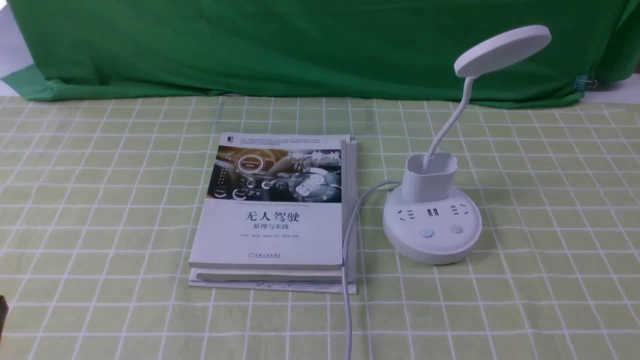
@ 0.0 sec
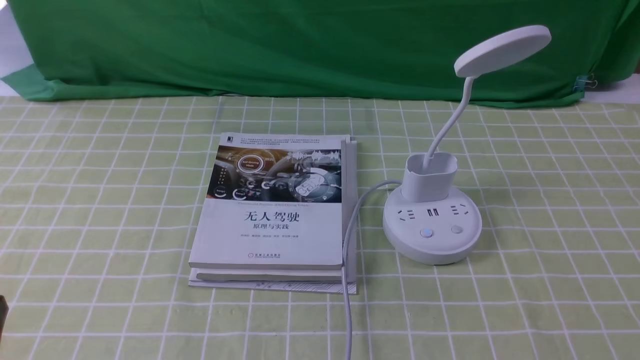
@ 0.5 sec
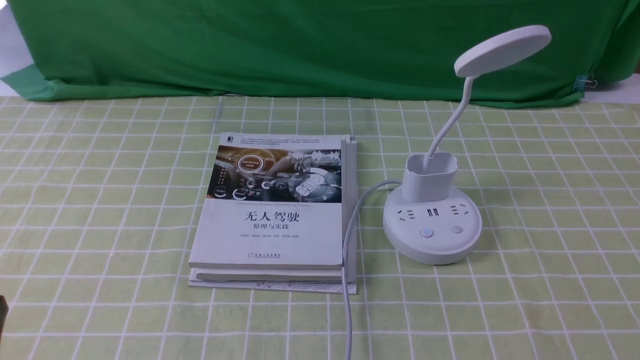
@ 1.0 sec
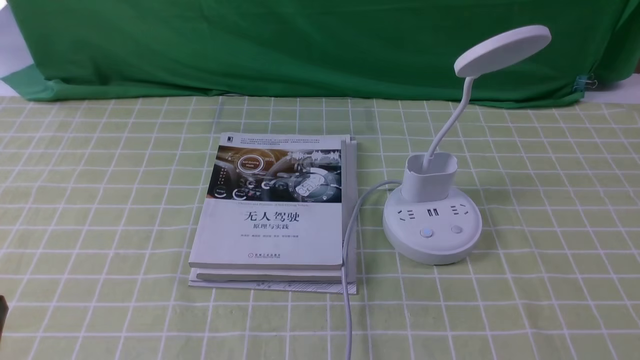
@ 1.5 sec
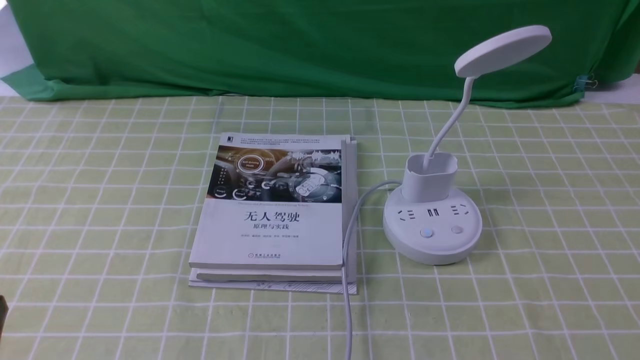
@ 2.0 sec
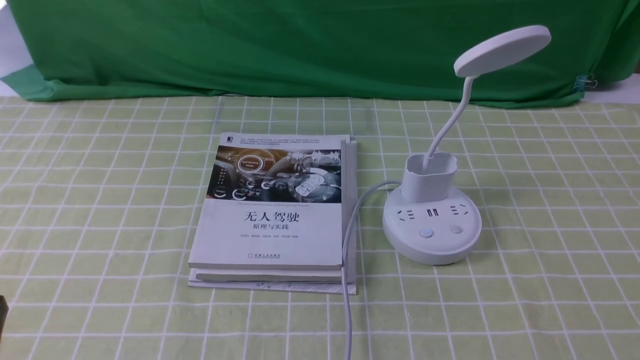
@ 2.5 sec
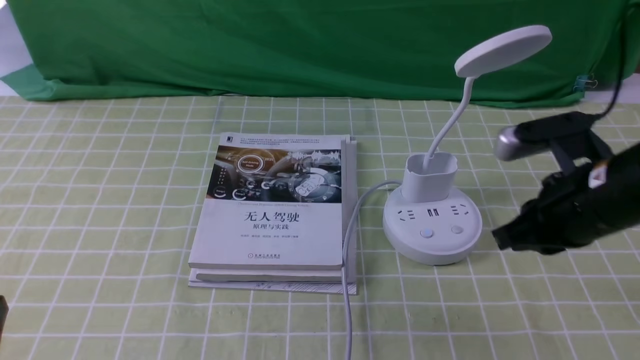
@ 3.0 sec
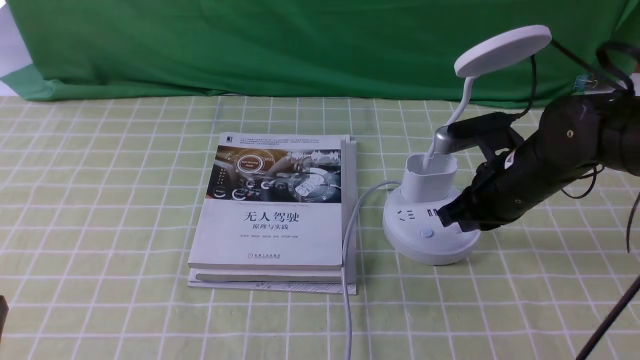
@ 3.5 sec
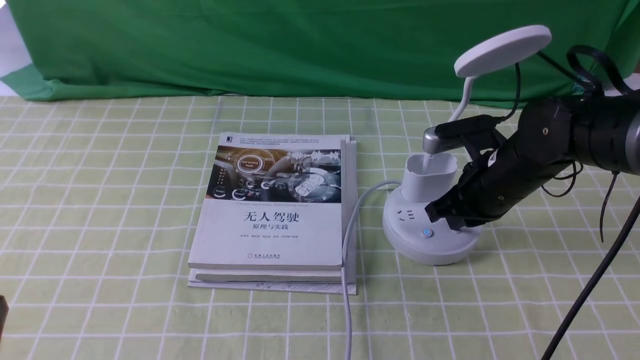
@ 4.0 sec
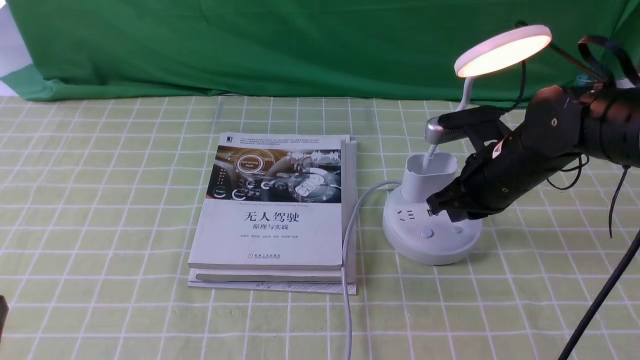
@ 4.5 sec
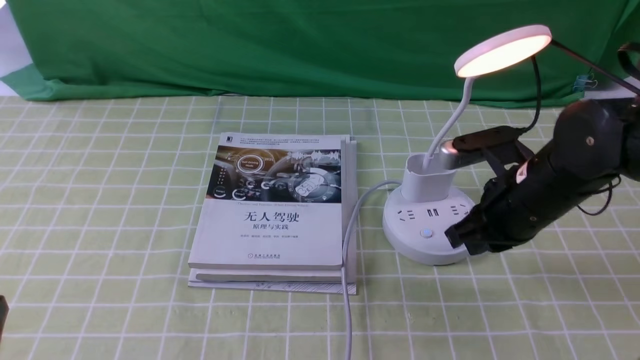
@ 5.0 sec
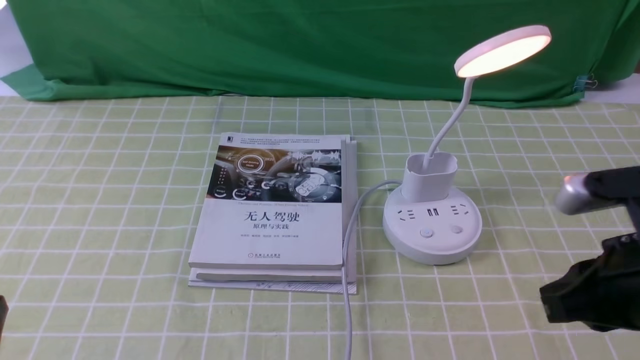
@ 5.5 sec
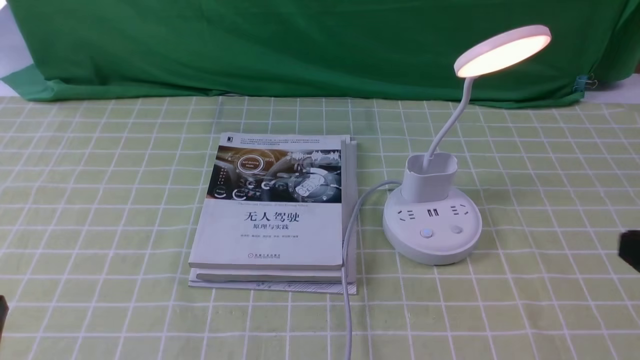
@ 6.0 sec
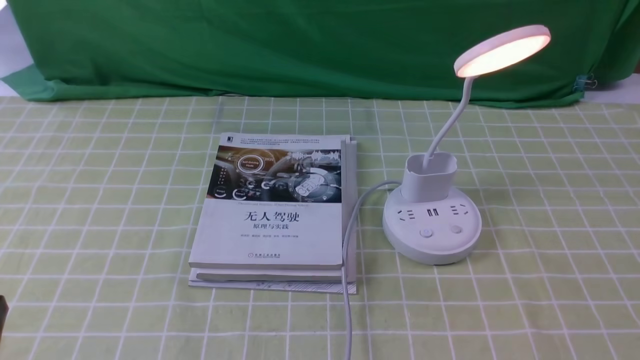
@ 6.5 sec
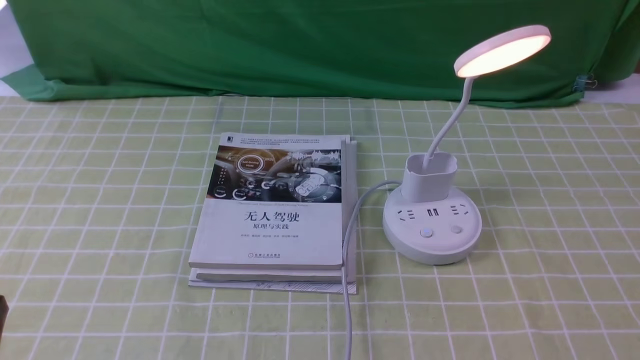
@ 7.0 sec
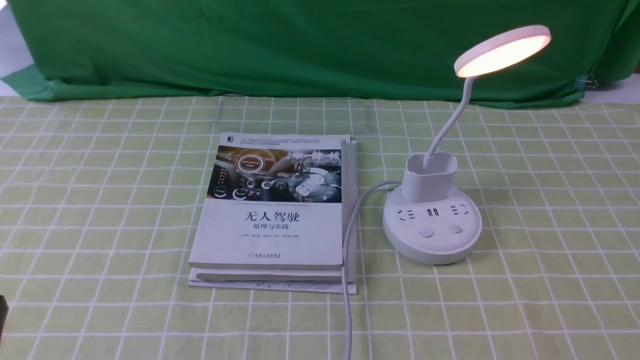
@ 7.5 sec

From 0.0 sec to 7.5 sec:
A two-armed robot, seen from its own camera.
Step, from 0.0 sec to 5.0 sec: use the right arm to press the button switch on the lamp holder.
From 2.0 sec to 4.0 sec: The right gripper travels forward and to the left by some 35 cm, and closes its fingers.
From 4.0 sec to 5.5 sec: The right gripper goes about 20 cm backward and upward.
From 5.5 sec to 7.5 sec: The right gripper travels backward, downward and to the right by roughly 15 cm.

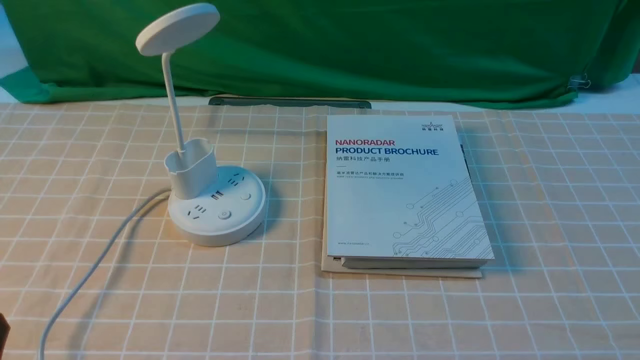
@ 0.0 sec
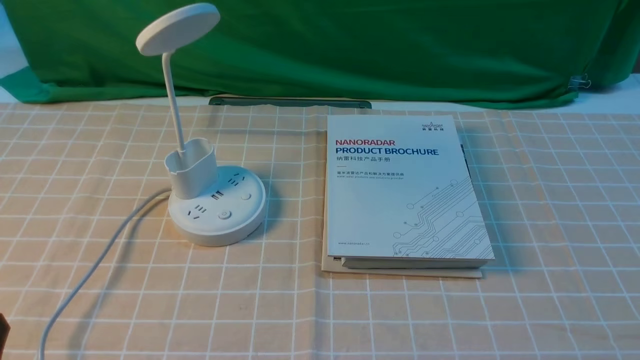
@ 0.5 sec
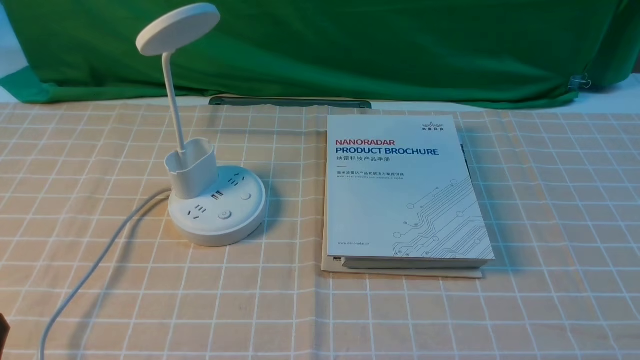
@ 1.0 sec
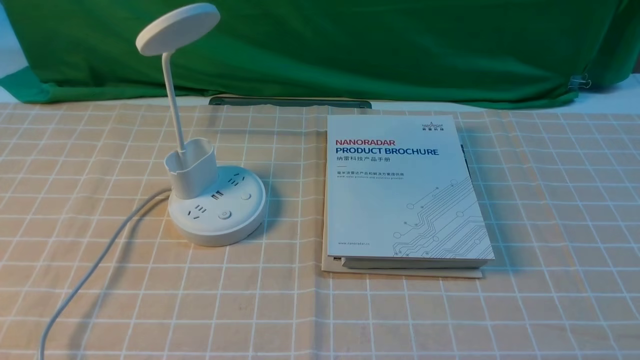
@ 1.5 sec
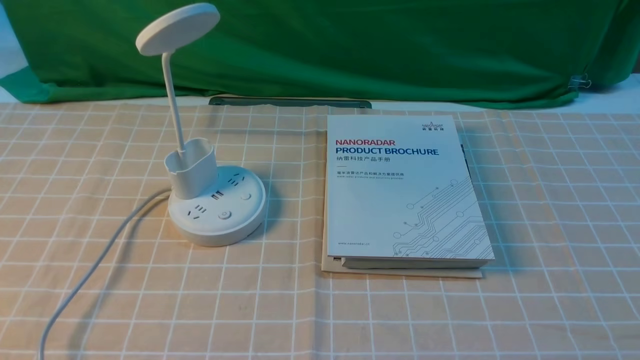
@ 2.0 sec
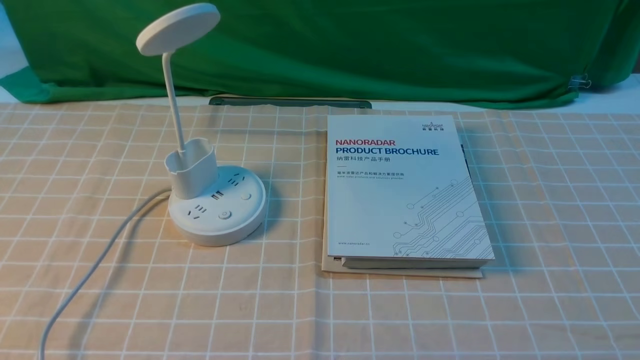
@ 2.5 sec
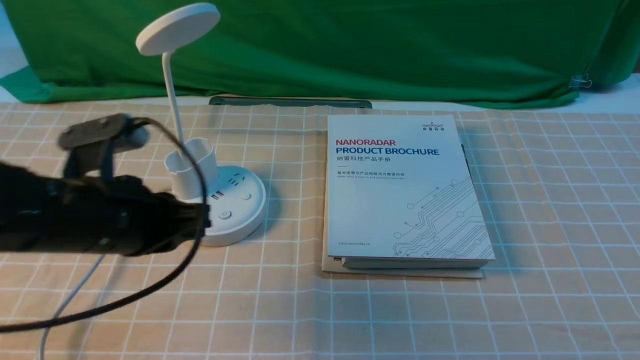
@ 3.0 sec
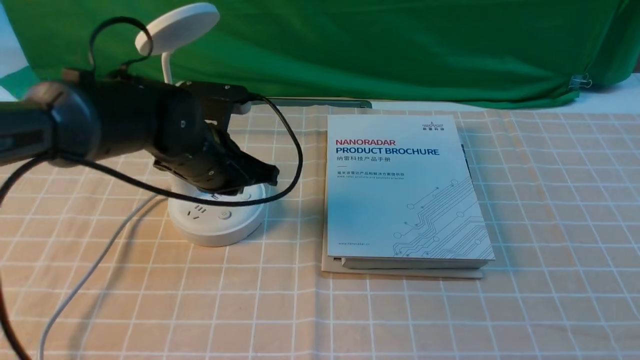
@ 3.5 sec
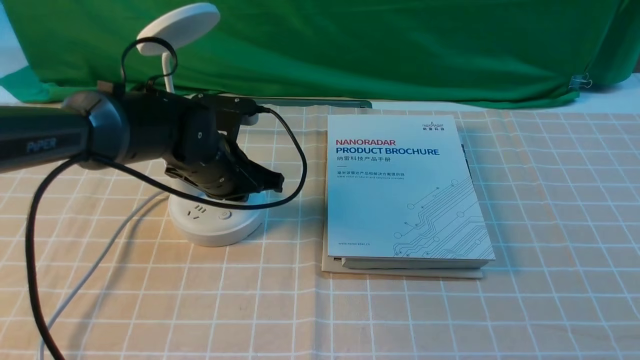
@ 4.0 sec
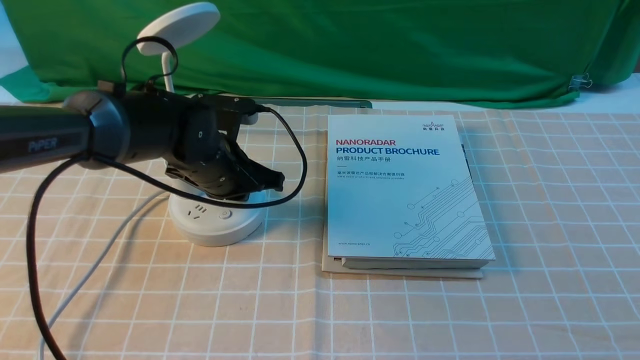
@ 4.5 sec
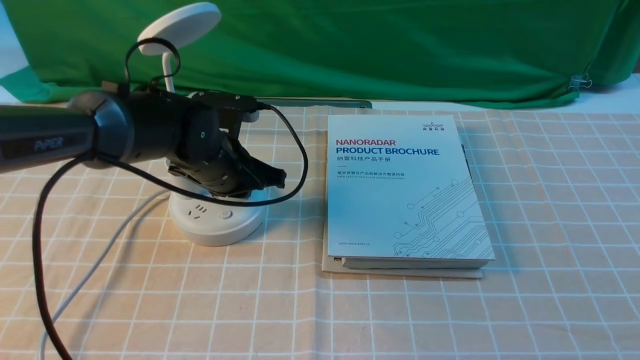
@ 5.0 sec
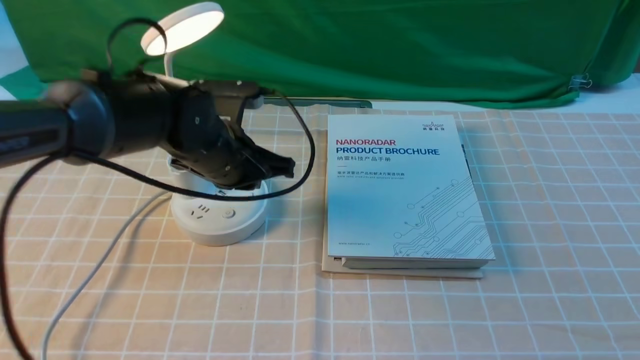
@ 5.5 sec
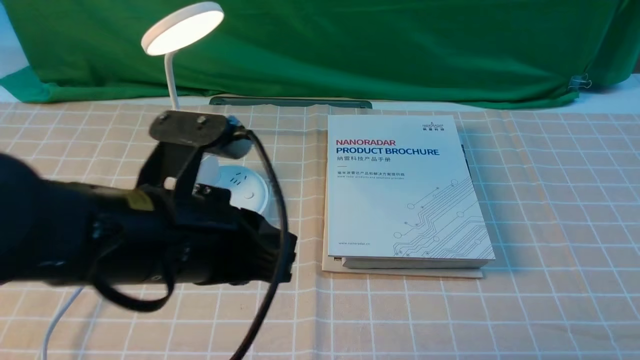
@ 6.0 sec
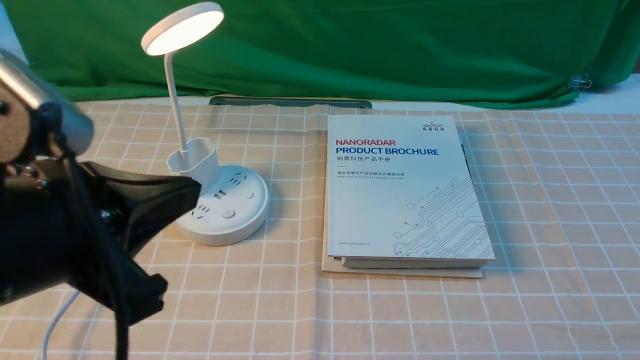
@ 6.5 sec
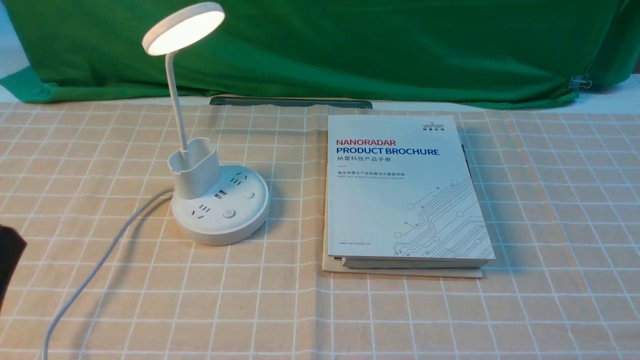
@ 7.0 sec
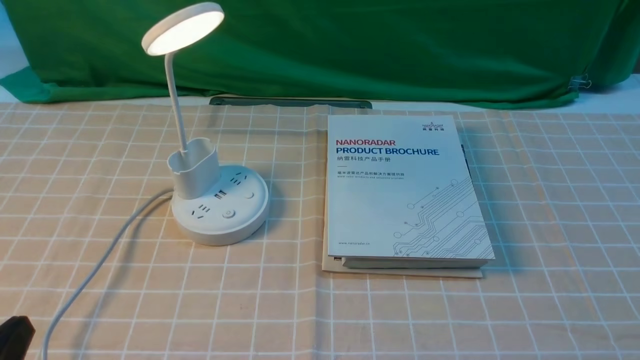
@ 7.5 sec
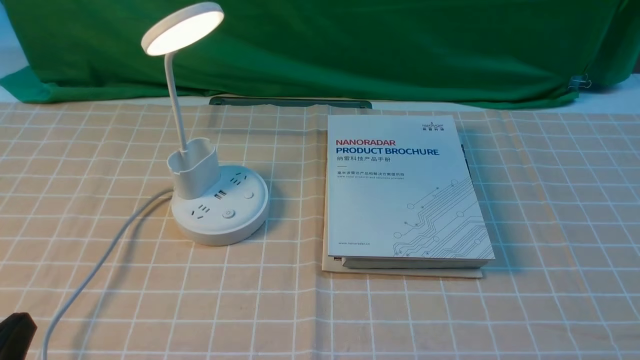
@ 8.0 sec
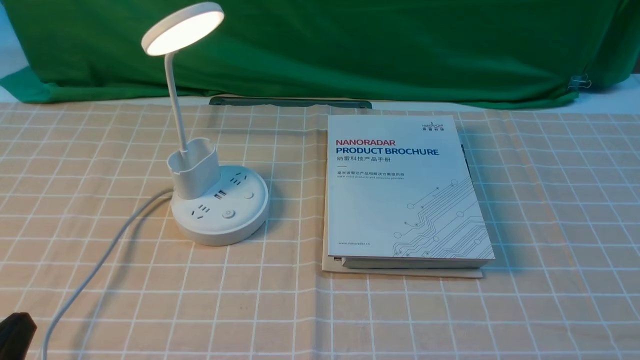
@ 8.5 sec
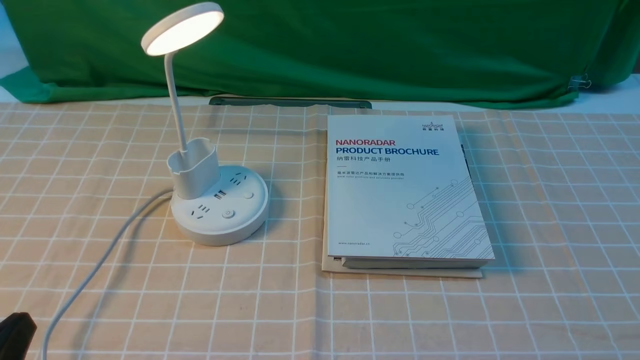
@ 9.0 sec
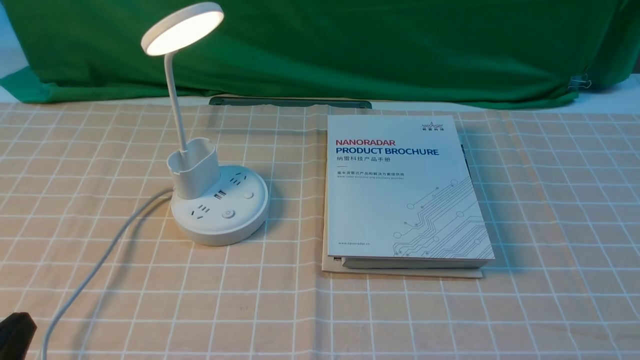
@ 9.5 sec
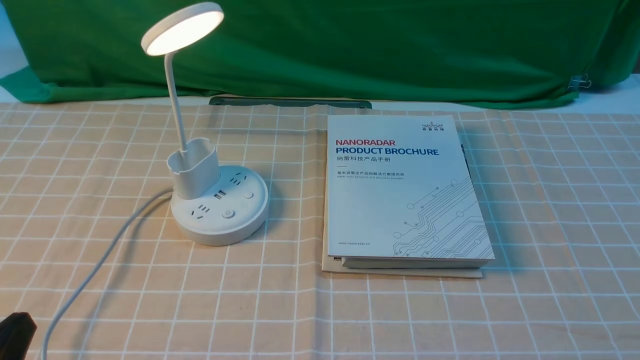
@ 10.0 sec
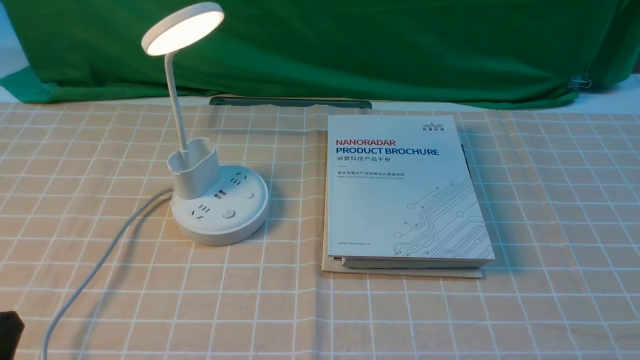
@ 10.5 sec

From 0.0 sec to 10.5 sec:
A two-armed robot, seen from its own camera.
Step, from 0.0 sec to 5.5 sec: use the left arm to press the button switch on the lamp holder.
From 2.0 sec to 4.0 sec: The left gripper travels forward and to the right by some 40 cm, and closes up.
From 4.0 sec to 6.5 sec: The left gripper travels backward and upward by some 30 cm, and opens up.
From 6.5 sec to 8.5 sec: The left gripper travels downward, to the left and backward by approximately 20 cm.
From 8.5 sec to 10.5 sec: Neither gripper changes place.

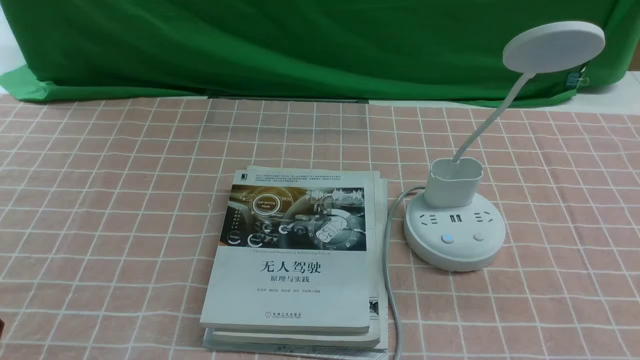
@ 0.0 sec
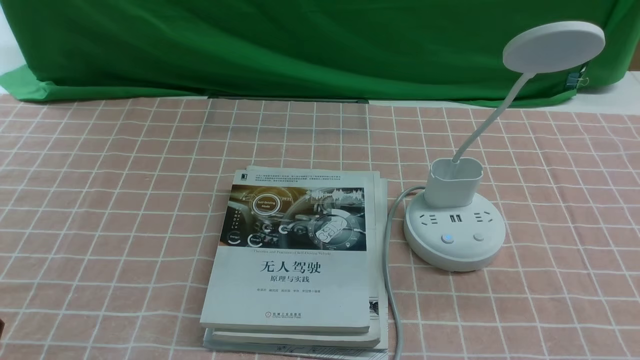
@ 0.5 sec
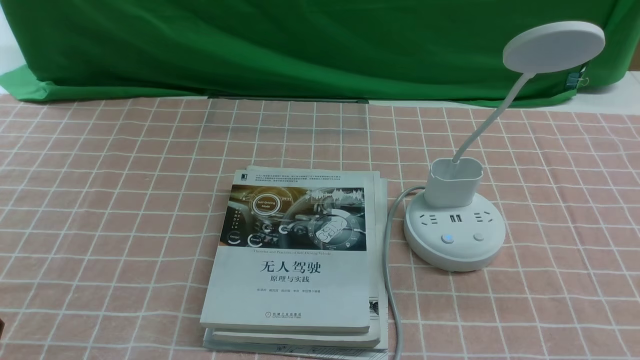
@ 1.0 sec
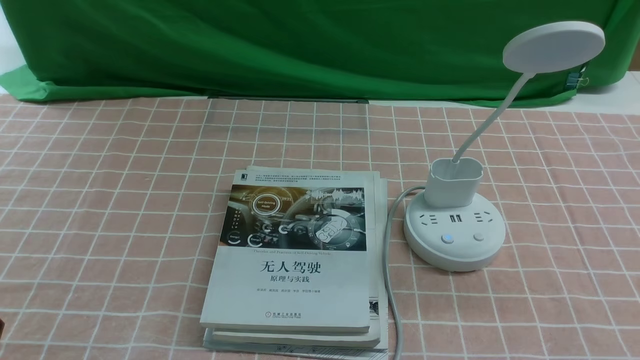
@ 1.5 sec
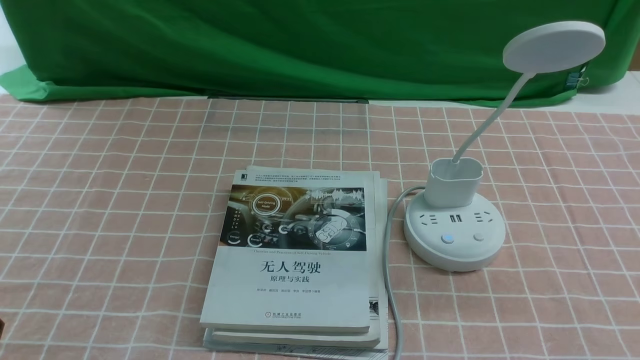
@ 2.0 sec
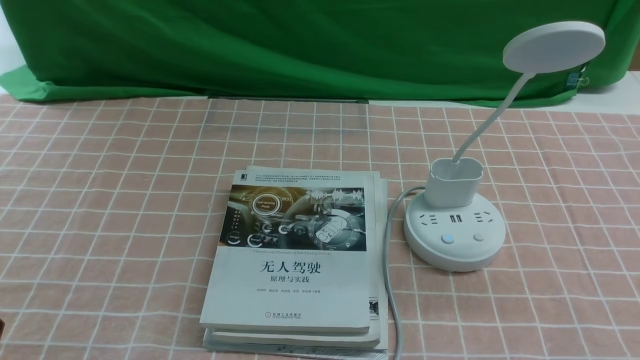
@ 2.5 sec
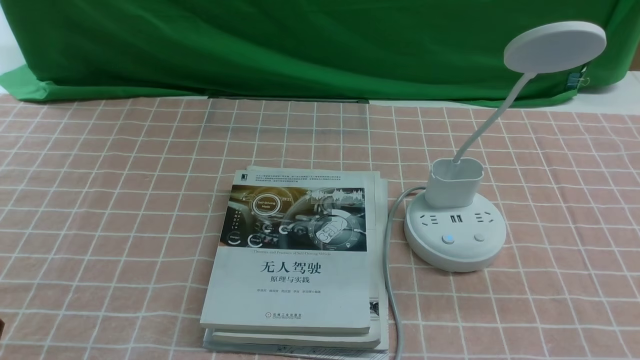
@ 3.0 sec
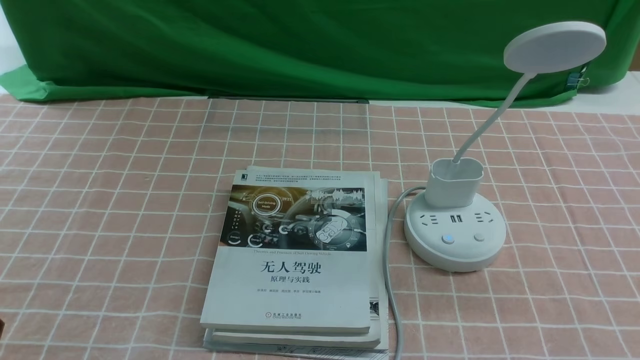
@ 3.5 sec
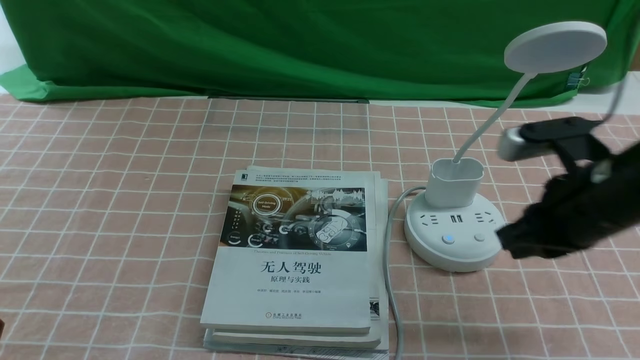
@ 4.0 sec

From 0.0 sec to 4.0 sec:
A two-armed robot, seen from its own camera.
From 0.0 sec to 2.0 sec: Both grippers stay put.
From 2.0 sec to 4.0 sec: The right gripper is displaced forward by about 20 cm, and closes its fingers.
